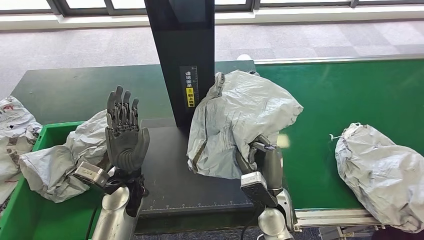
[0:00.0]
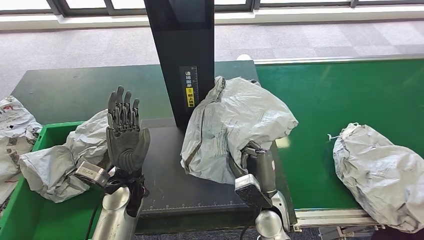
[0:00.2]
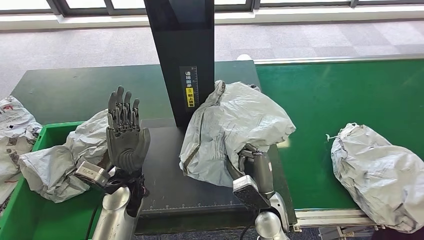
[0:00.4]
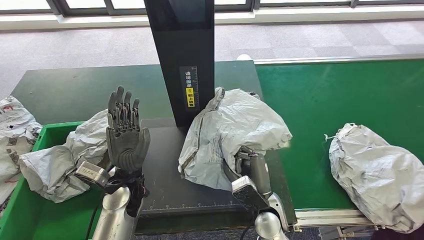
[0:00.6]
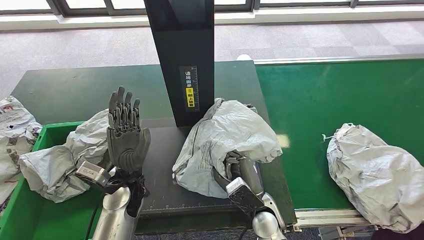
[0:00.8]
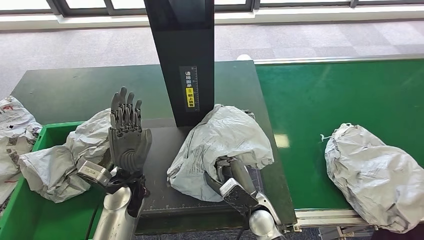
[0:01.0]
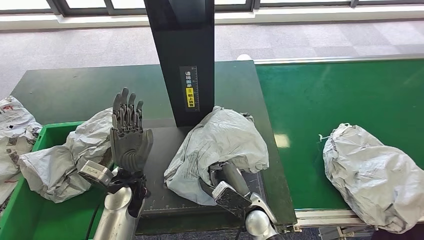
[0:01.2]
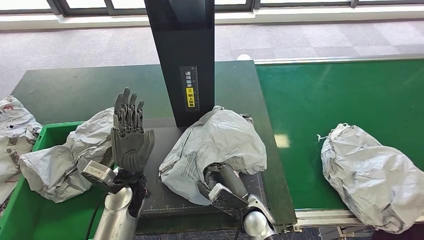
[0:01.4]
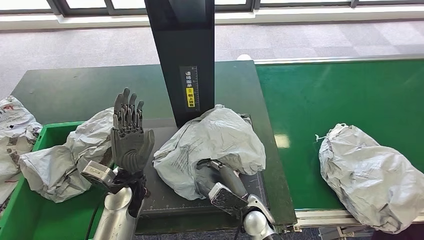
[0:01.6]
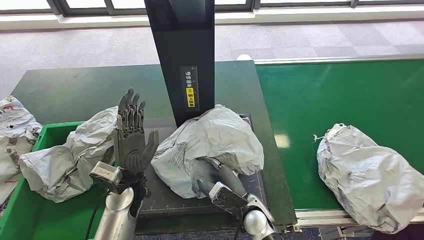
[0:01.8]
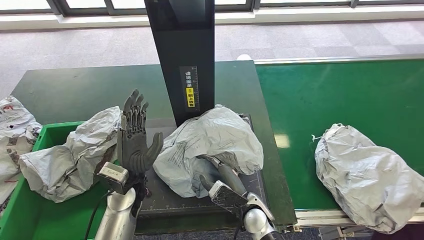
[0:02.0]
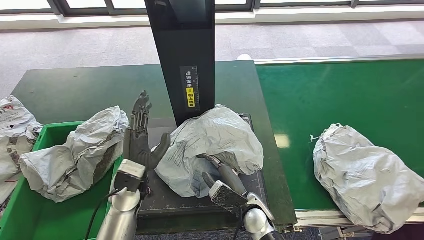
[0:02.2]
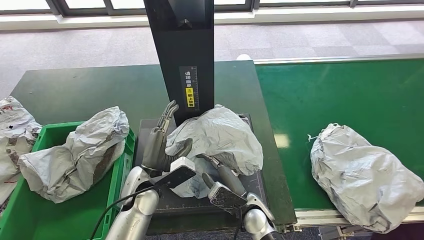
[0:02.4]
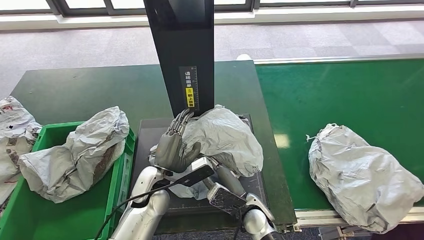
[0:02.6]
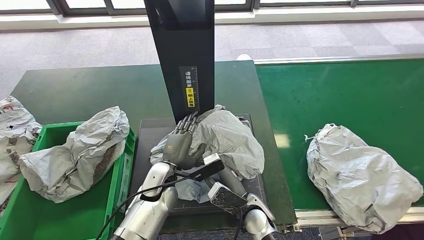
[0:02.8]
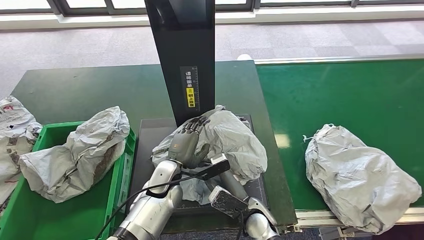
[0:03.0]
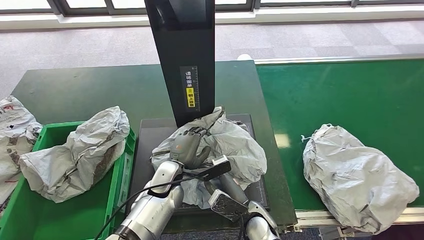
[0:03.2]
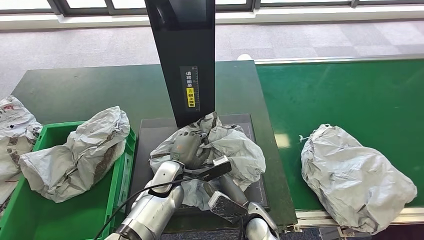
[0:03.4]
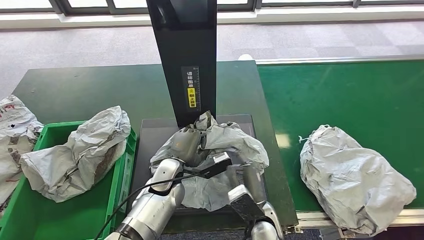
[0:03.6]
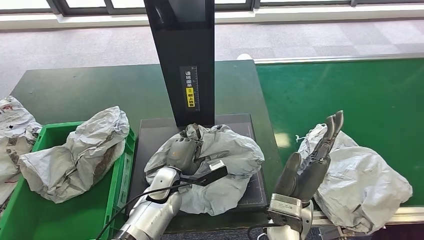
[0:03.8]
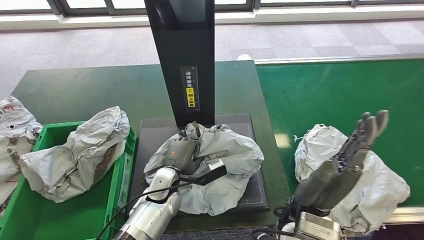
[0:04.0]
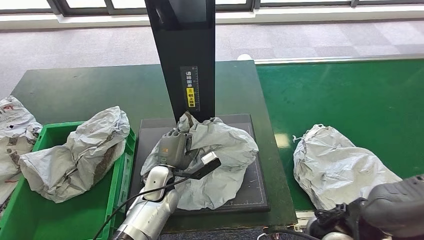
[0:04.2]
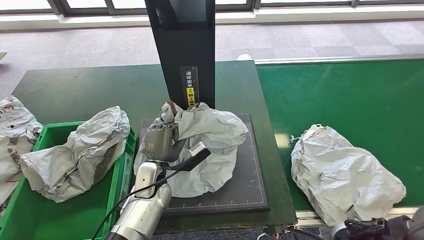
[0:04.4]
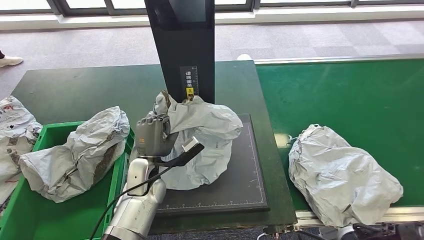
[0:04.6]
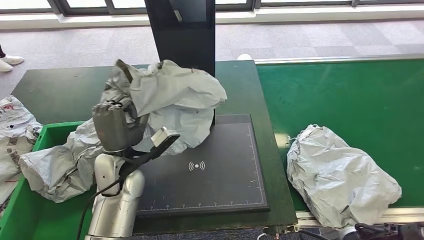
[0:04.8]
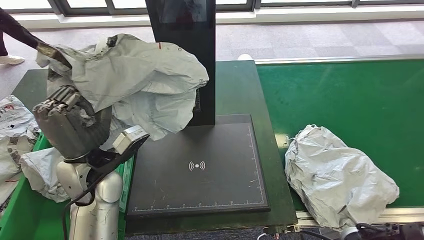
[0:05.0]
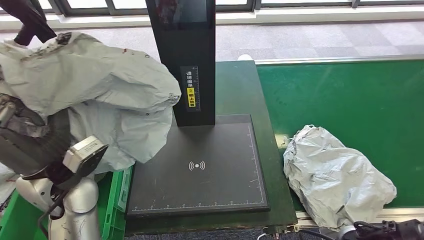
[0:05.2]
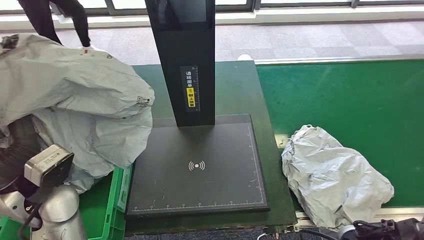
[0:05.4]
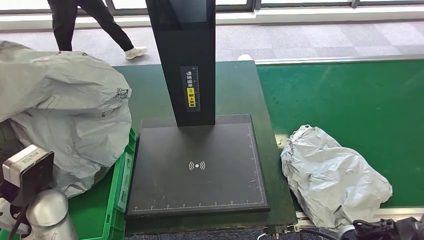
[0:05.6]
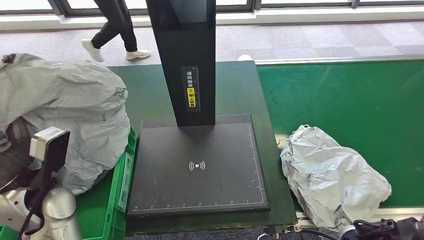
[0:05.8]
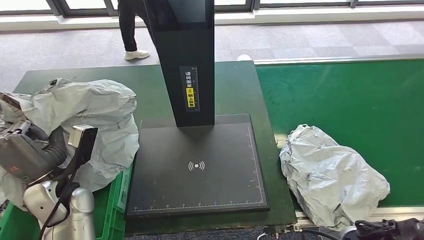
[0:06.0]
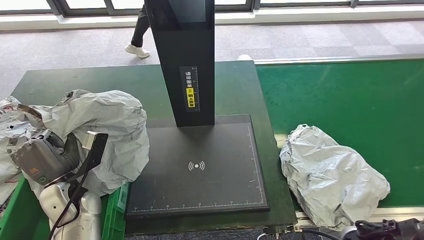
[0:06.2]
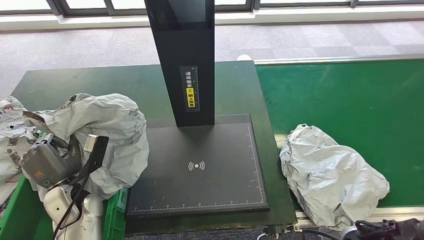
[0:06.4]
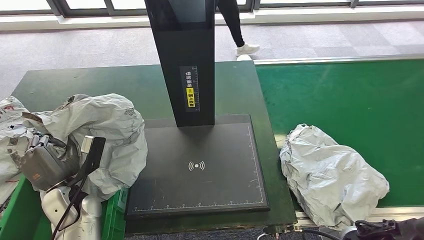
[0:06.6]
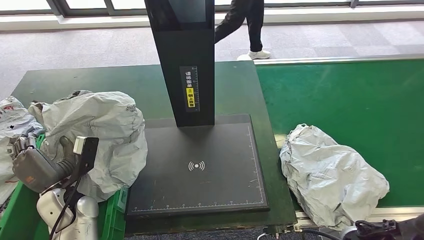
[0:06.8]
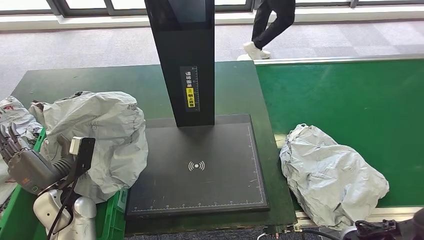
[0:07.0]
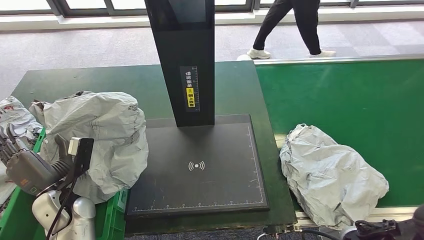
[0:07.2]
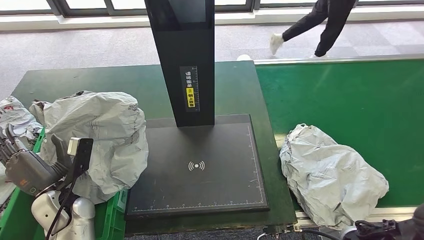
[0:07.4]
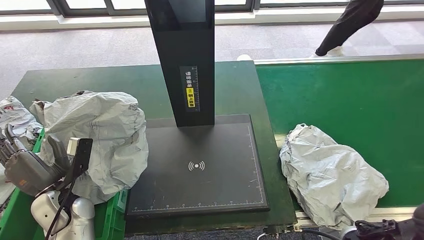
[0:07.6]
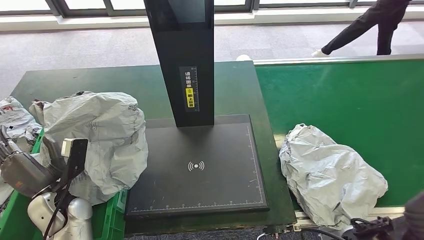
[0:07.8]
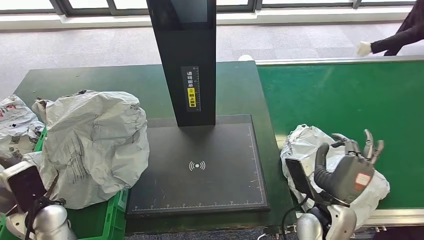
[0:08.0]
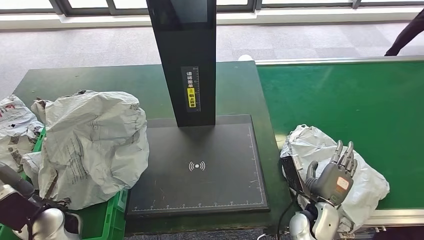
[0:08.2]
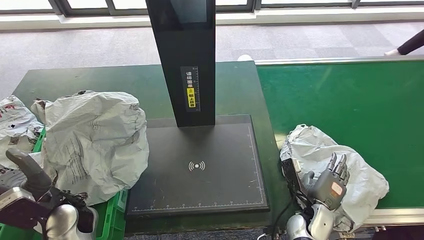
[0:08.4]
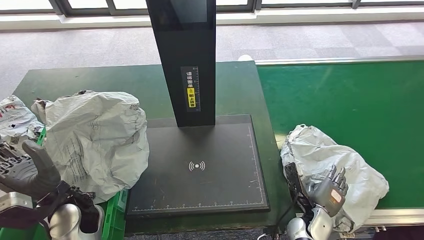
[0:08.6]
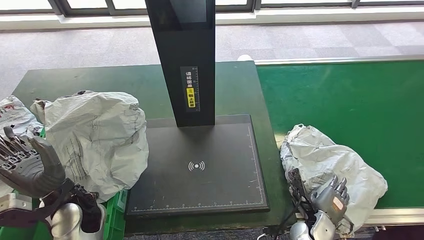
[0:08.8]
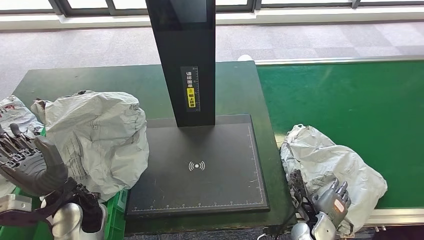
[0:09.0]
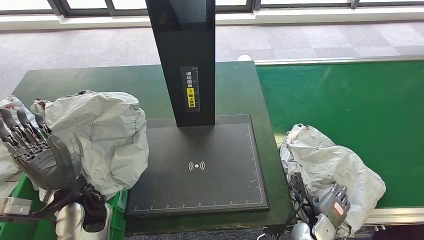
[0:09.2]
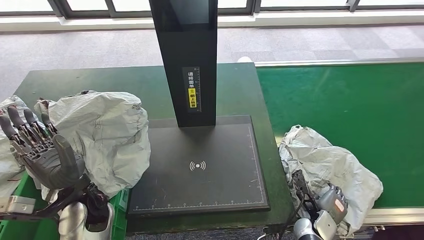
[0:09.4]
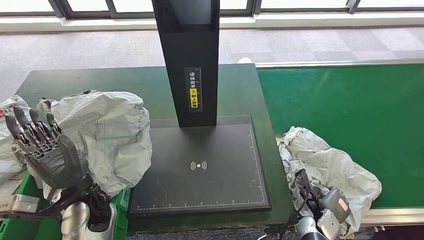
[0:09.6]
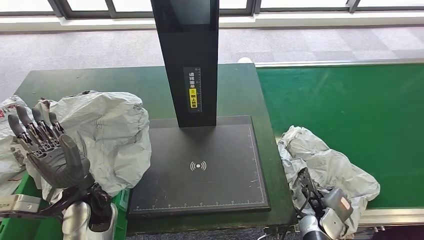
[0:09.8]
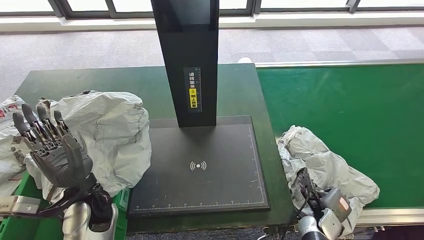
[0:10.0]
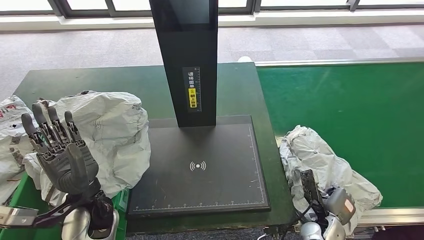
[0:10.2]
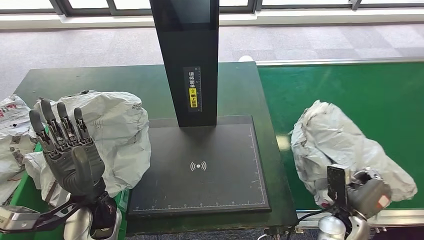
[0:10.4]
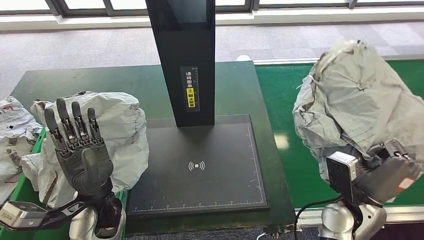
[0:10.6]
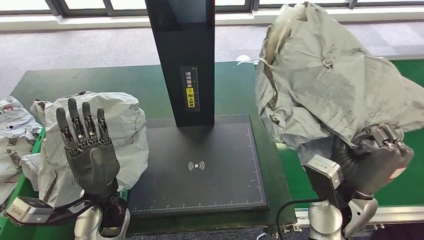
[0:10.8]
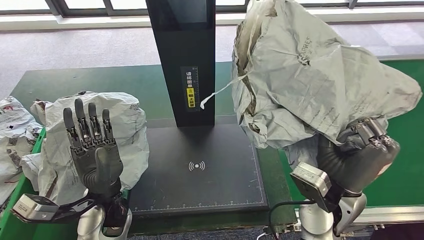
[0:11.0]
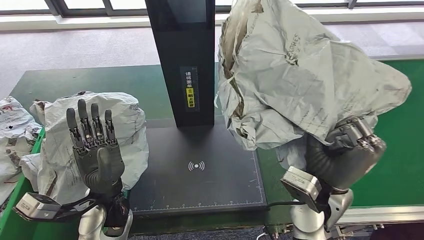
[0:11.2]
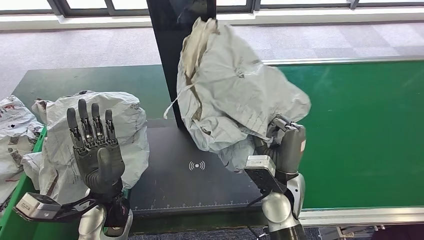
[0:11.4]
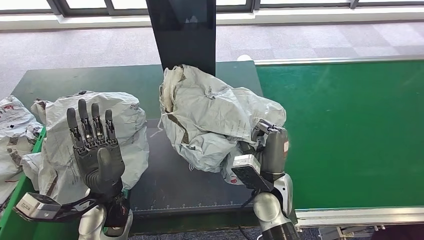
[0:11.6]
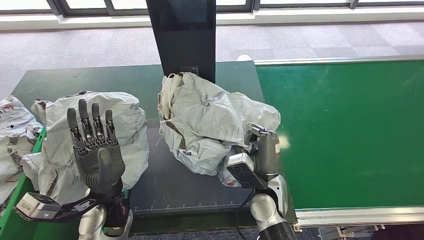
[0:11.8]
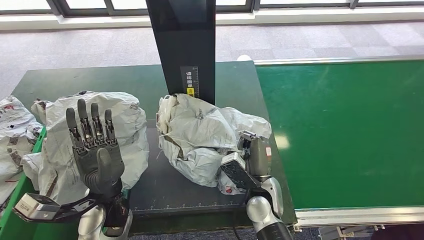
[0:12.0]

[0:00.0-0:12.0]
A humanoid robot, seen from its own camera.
Step, 0:00.0 to 0:03.0: Place the parcel onto the inbound machine.
Step, 0:03.2 to 0:04.8: Pick up the parcel from the inbound machine.
Step, 0:05.0 to 0:08.2: Place the parcel into the delivery box.
Step, 0:08.6 to 0:10.8: Pick up the parcel from the conveyor belt.
0:01.6 to 0:03.0: The left hand heads to the right, covering roughly 5 cm.
0:03.0 to 0:04.4: The right hand goes roughly 25 cm upward and to the right.
0:06.0 to 0:07.6: The left hand moves downward, roughly 5 cm.
0:07.6 to 0:09.0: The left hand moves to the right, approximately 5 cm, while the right hand travels downward by approximately 25 cm.

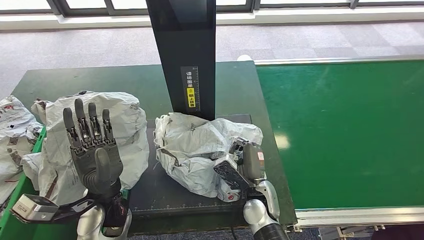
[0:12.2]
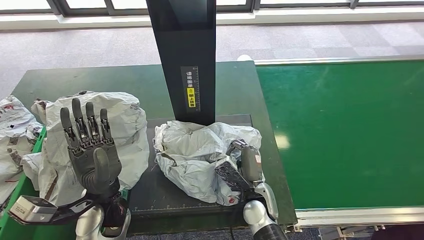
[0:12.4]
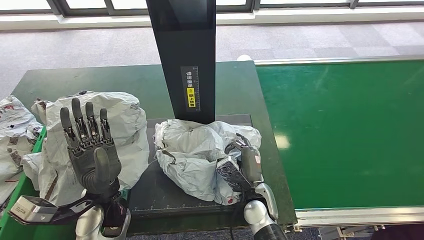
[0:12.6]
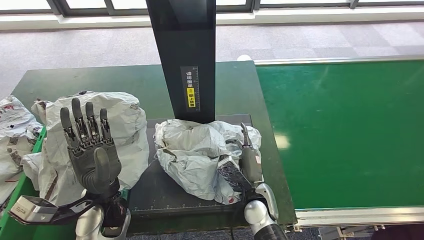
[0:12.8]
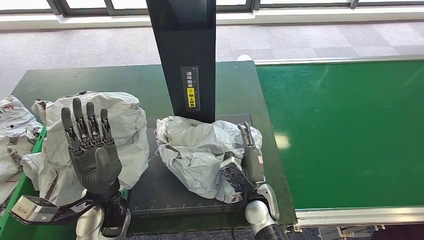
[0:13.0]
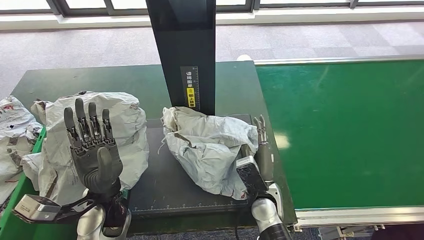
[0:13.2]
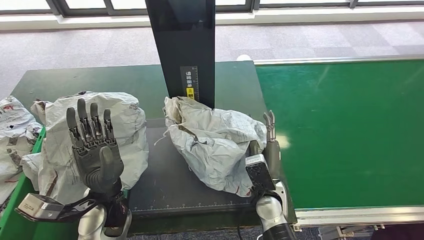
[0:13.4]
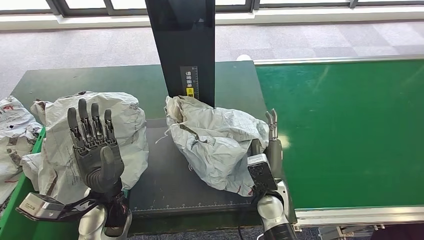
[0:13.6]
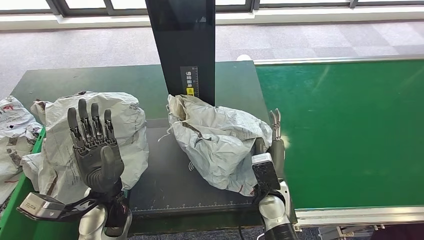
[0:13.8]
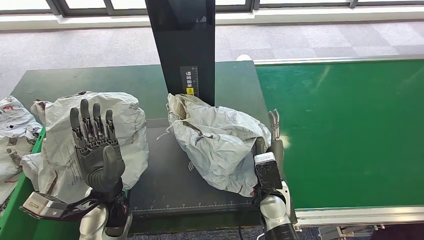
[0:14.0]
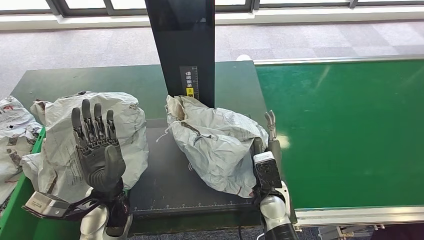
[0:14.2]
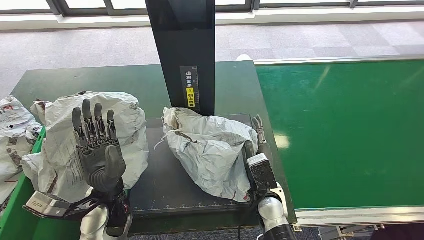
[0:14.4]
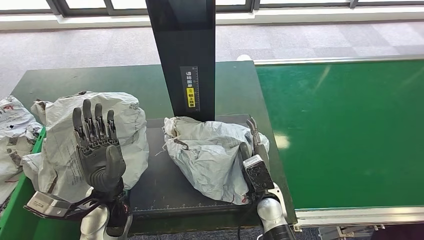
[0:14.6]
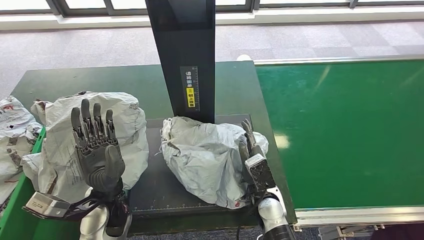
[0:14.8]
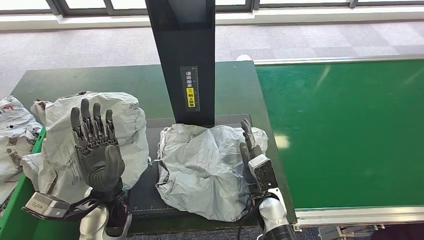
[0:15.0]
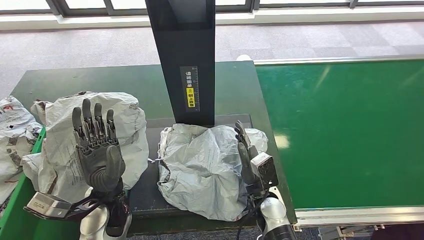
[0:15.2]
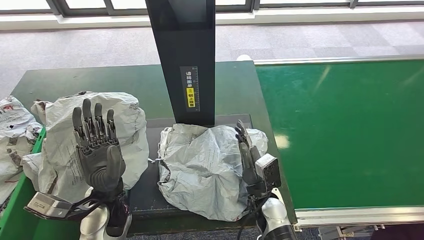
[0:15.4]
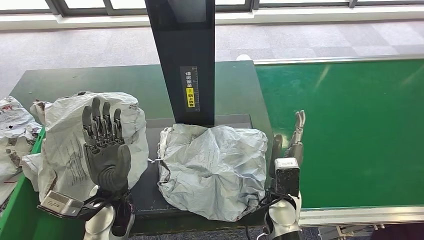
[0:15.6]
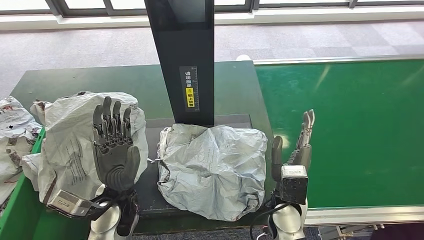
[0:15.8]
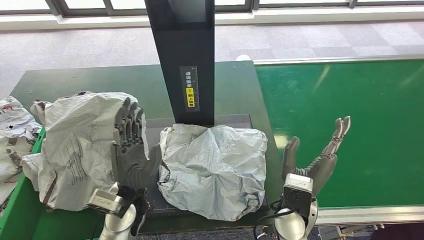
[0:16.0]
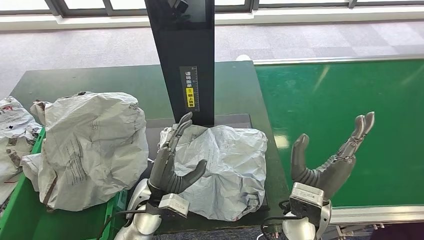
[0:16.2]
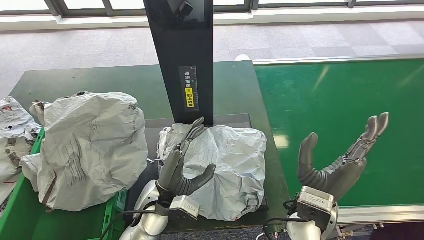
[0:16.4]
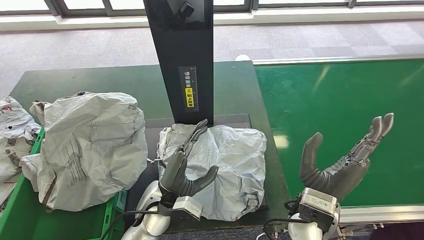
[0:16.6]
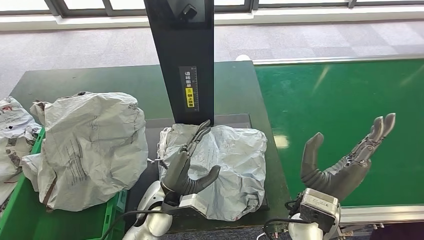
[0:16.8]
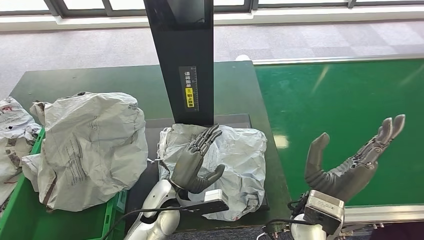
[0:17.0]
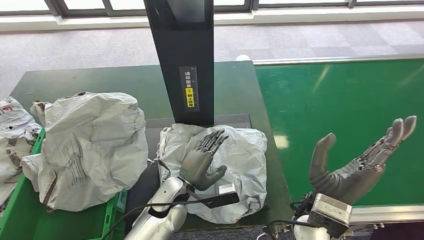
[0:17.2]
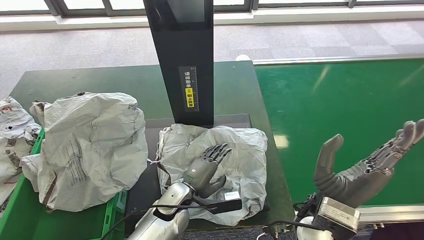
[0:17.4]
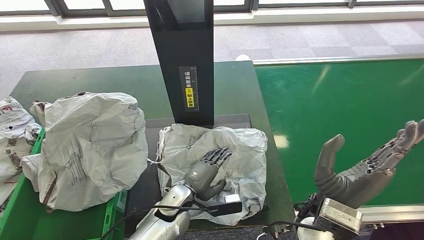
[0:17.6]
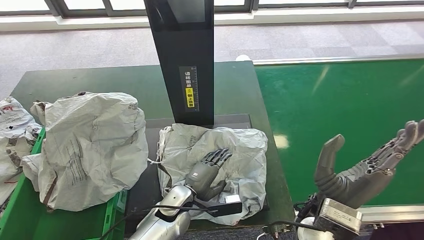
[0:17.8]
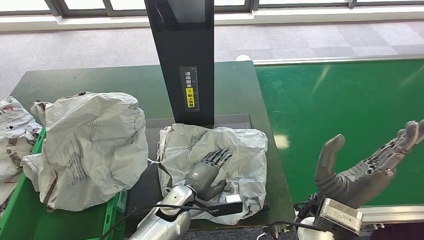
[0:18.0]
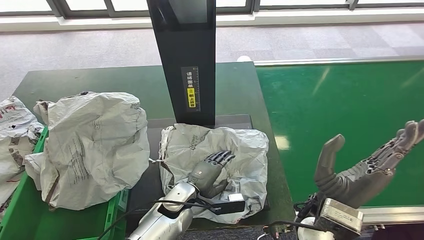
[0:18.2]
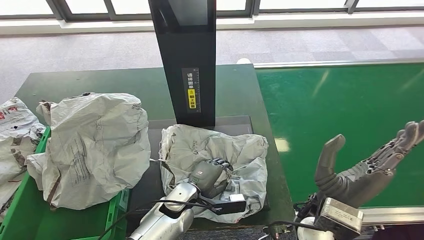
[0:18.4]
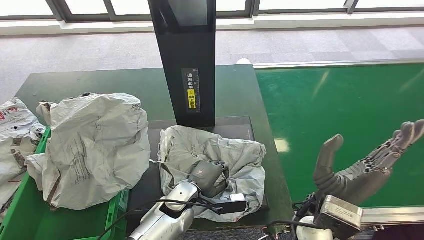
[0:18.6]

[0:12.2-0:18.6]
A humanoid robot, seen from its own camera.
Step, 0:12.2 to 0:13.8: Place the parcel onto the inbound machine.
